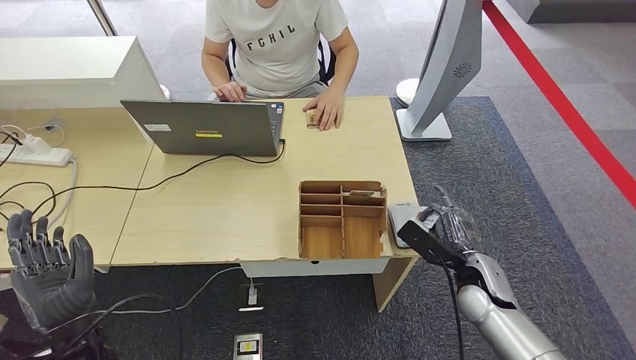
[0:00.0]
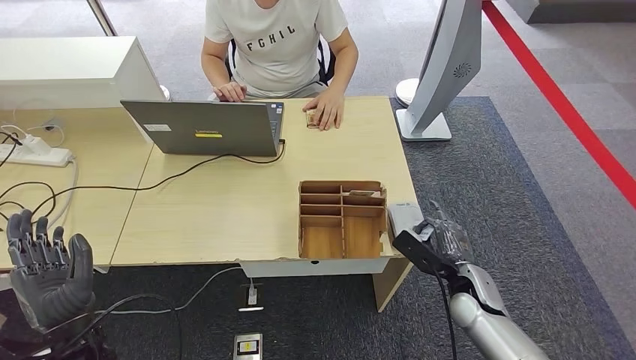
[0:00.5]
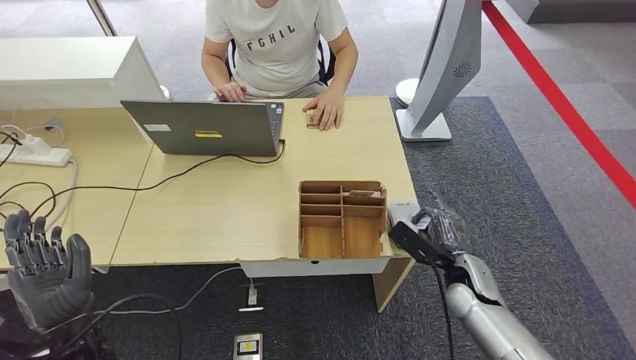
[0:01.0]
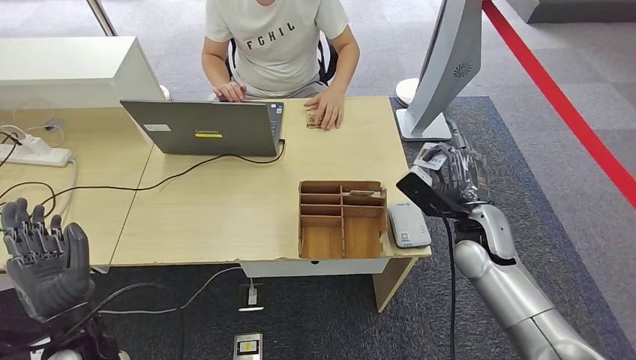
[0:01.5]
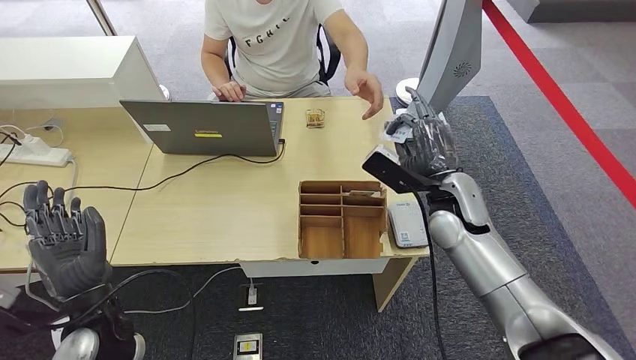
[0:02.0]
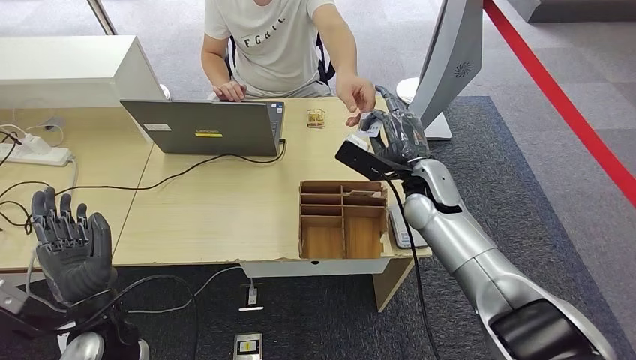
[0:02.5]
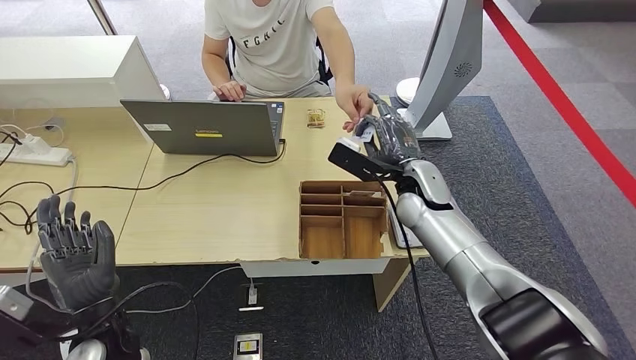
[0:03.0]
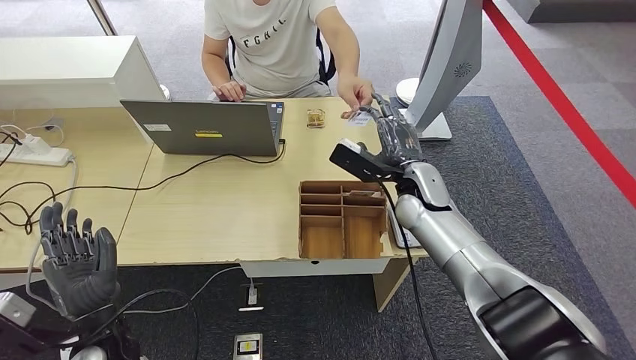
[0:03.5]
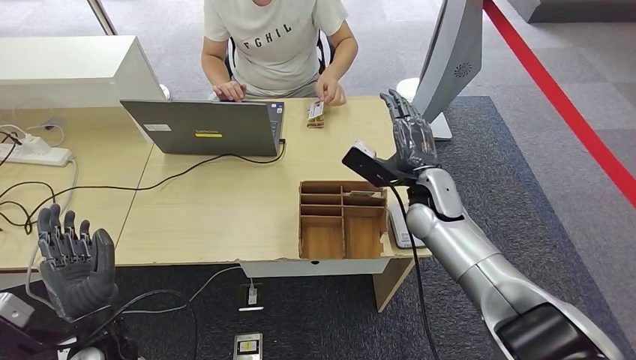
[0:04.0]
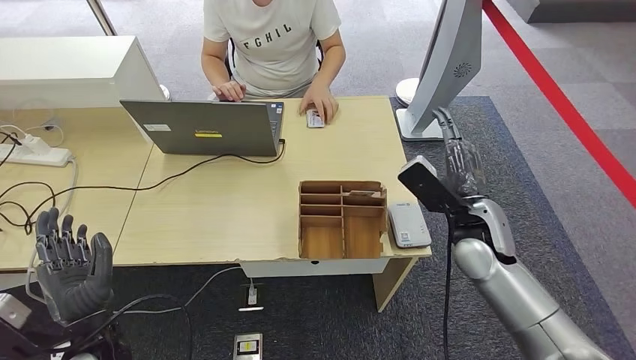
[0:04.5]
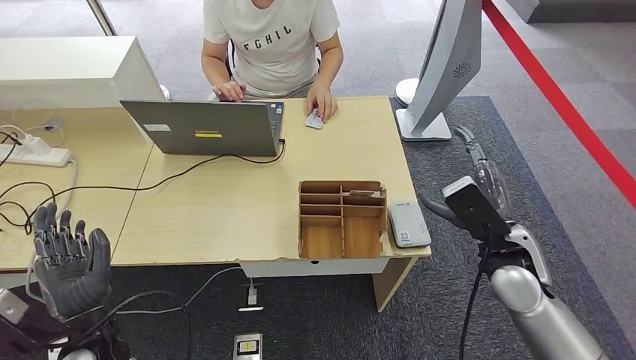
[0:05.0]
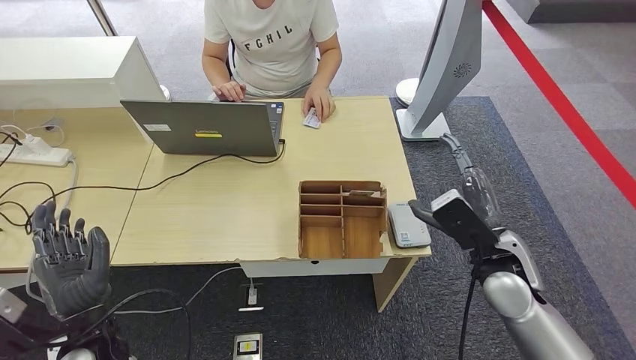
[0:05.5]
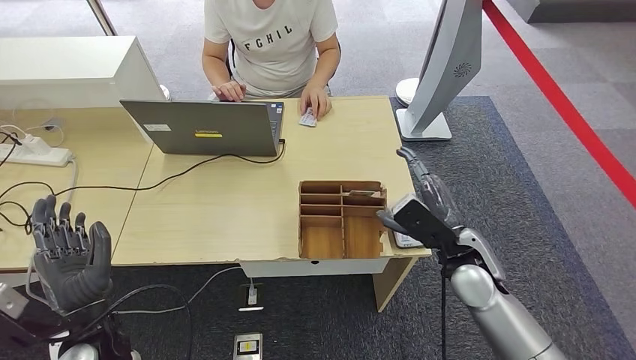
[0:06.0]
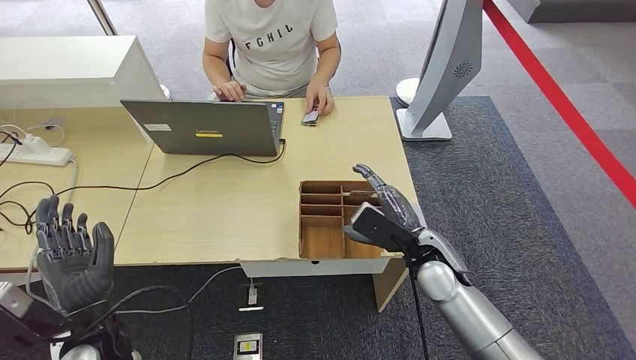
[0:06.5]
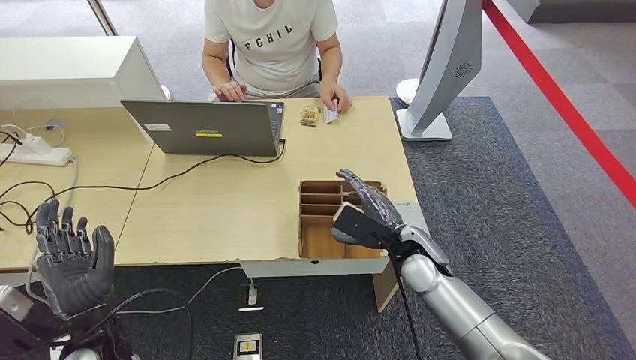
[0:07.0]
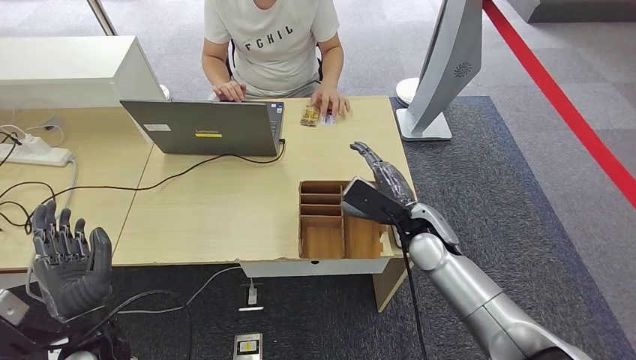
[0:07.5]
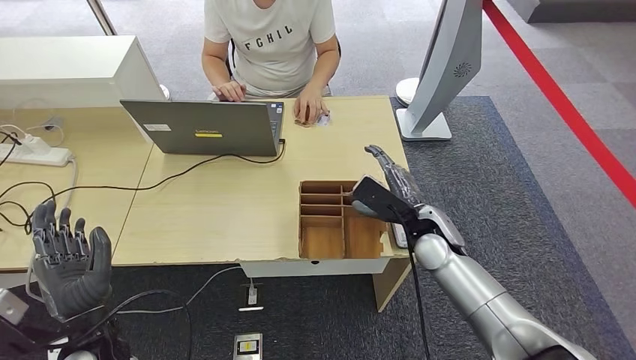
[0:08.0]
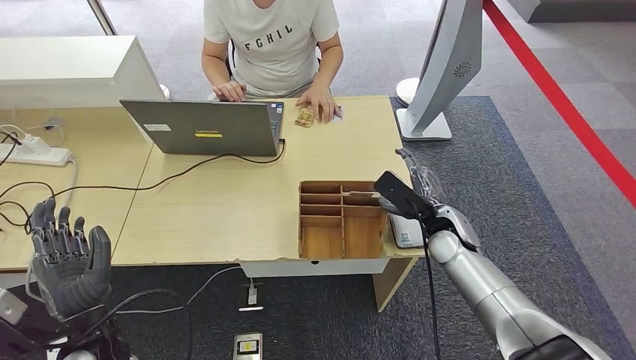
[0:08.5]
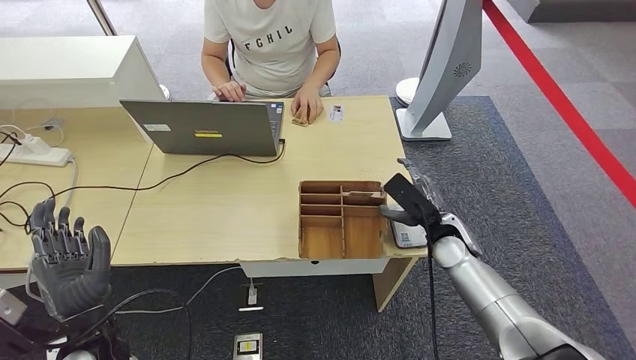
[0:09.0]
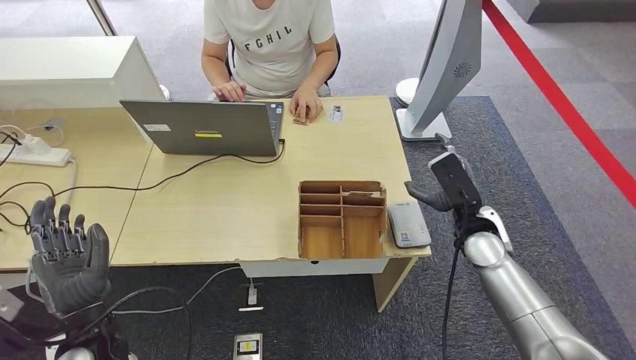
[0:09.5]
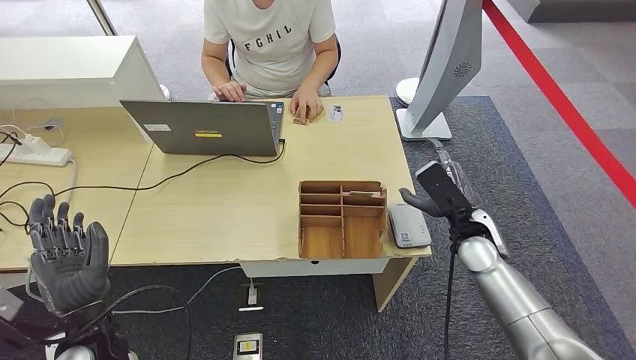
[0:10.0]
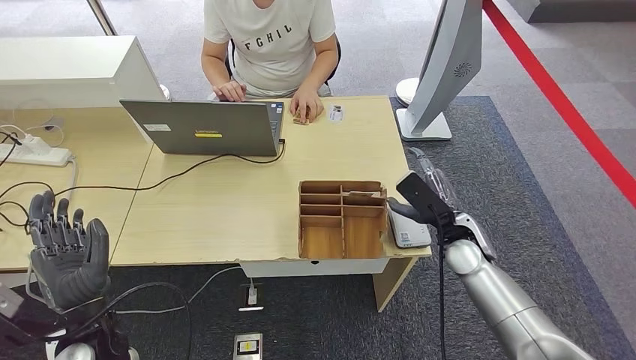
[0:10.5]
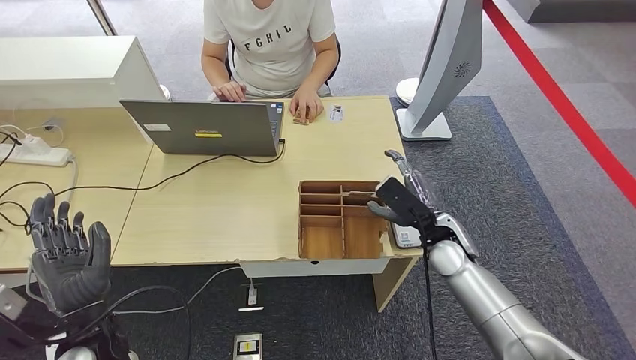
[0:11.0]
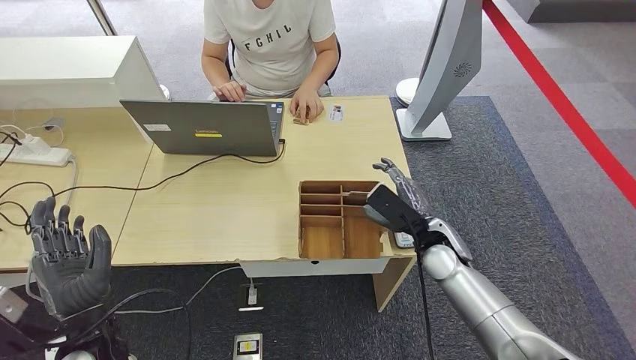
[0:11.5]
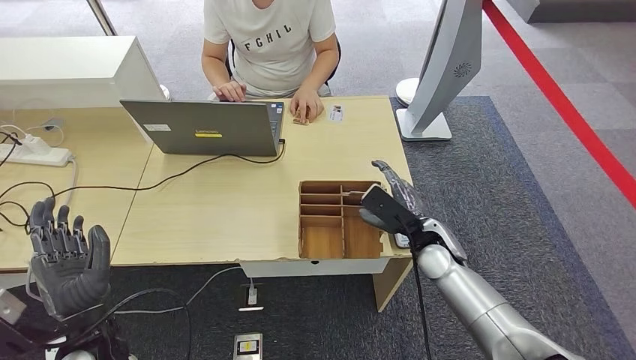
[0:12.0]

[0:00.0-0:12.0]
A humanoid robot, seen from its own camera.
Step, 0:01.5 to 0:04.5: Hand the ID card to the person.
0:00.0 to 0:02.0: The right hand shifts some 15 cm upward, forward and to the left.
0:04.0 to 0:06.0: The right hand heads backward, covering approximately 10 cm.
0:06.0 to 0:08.0: The right hand travels forward by about 5 cm.
0:08.0 to 0:10.0: The right hand moves to the right, roughly 10 cm.
0:10.0 to 0:12.0: The right hand heads to the left, covering approximately 5 cm.

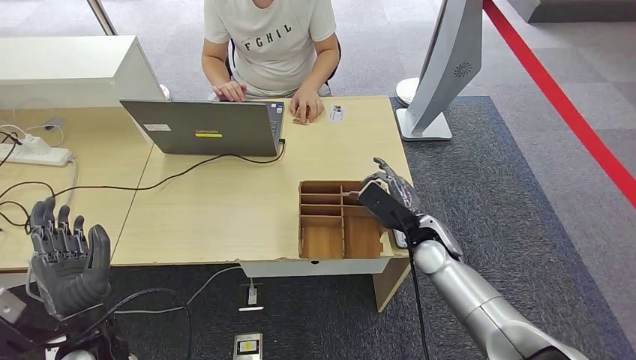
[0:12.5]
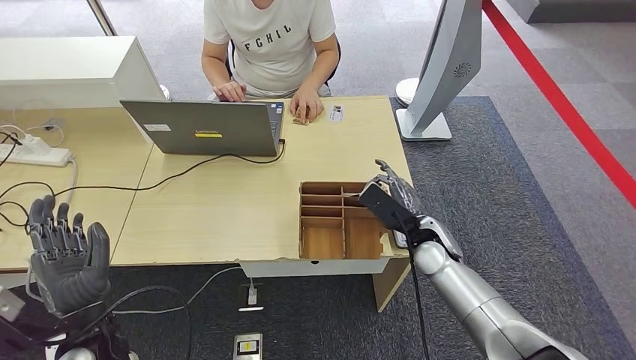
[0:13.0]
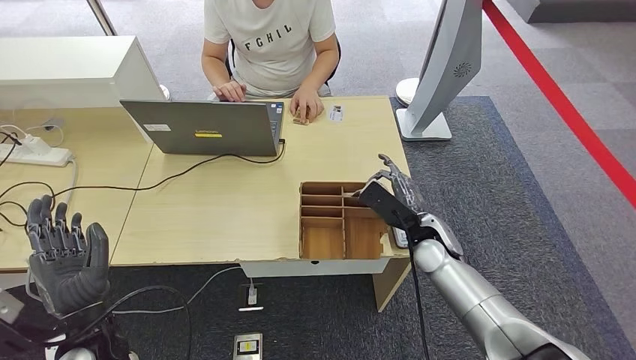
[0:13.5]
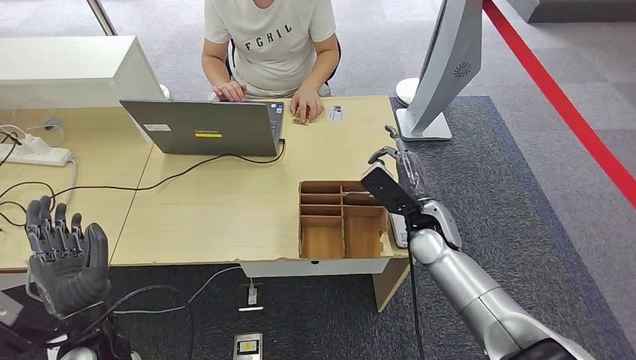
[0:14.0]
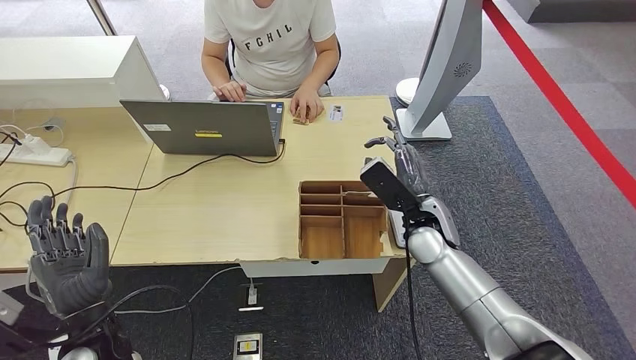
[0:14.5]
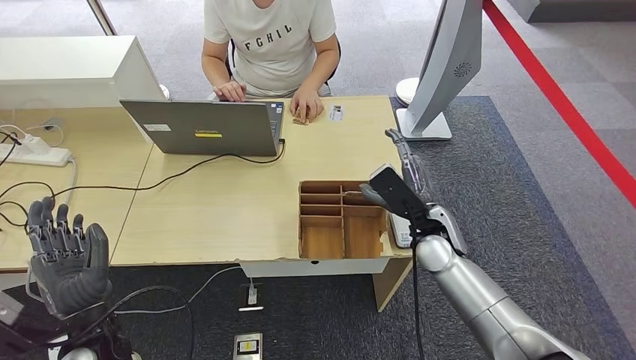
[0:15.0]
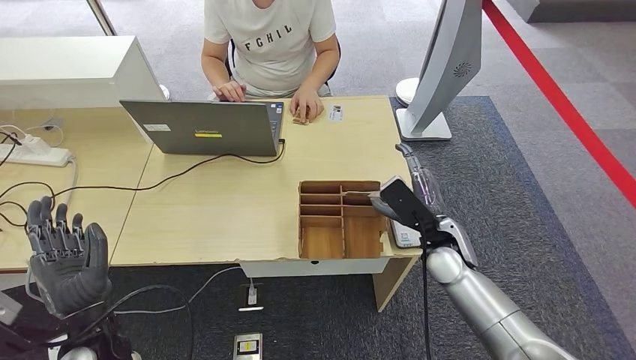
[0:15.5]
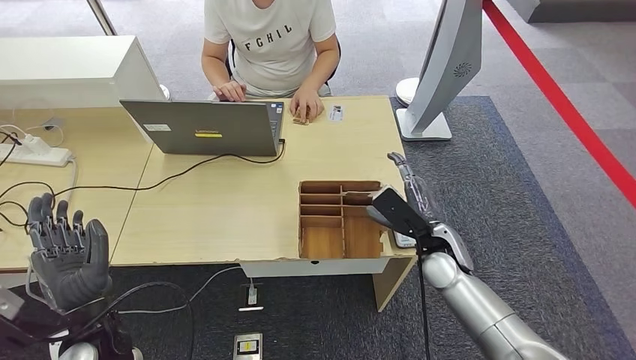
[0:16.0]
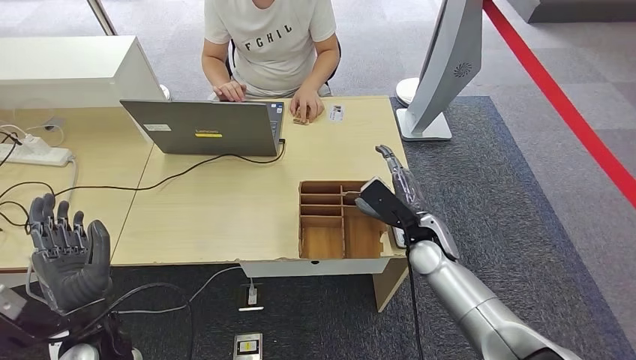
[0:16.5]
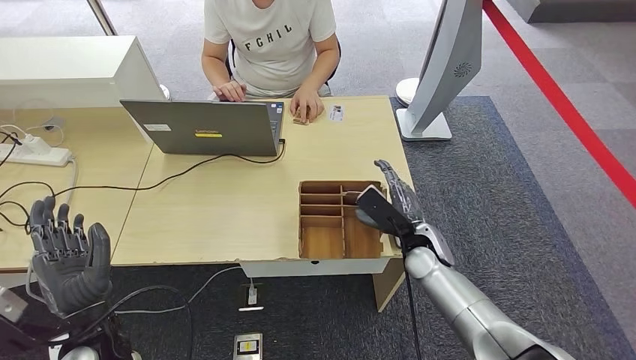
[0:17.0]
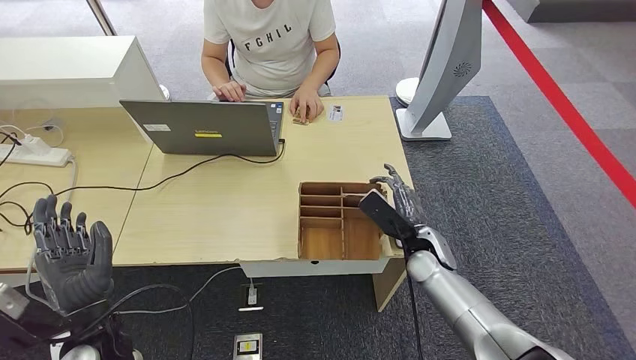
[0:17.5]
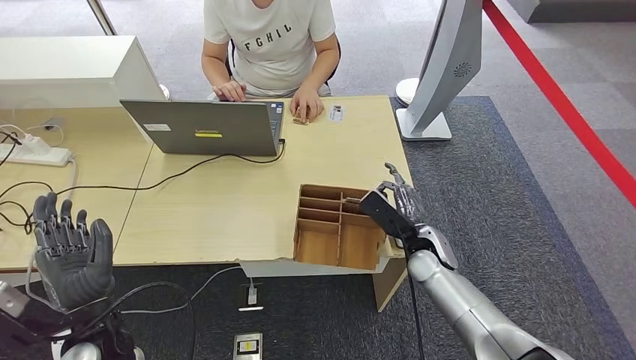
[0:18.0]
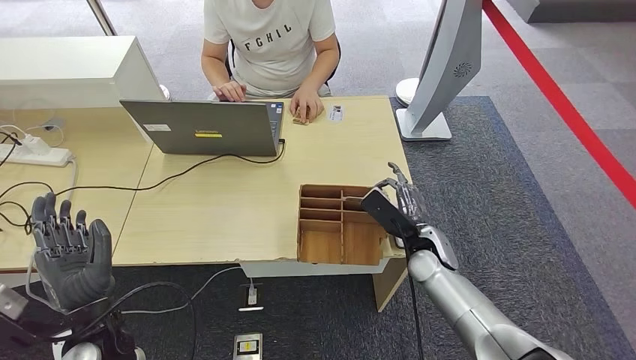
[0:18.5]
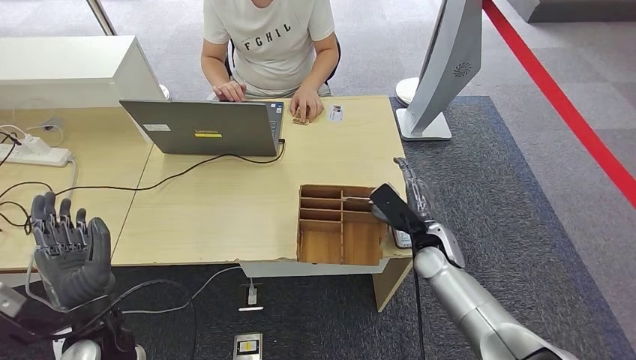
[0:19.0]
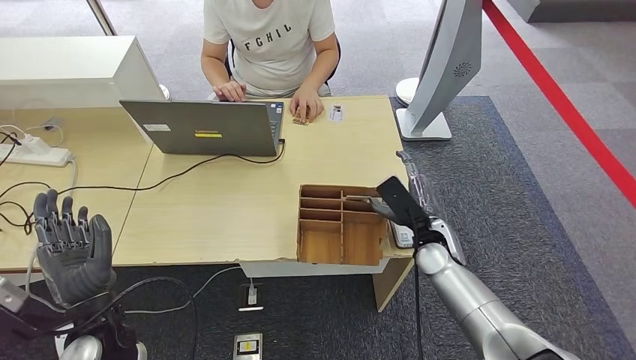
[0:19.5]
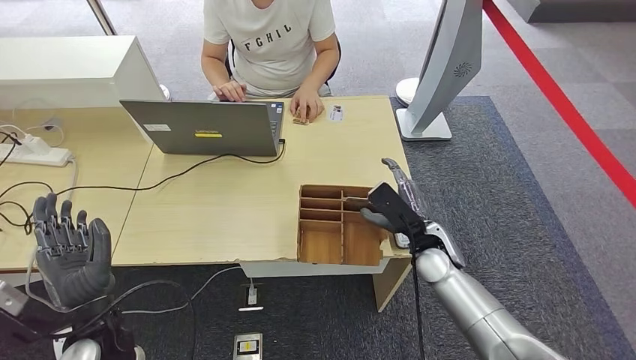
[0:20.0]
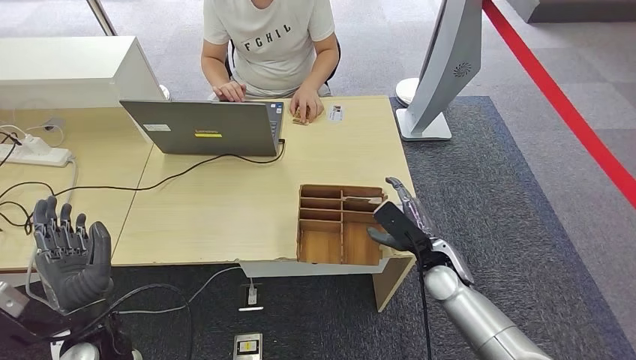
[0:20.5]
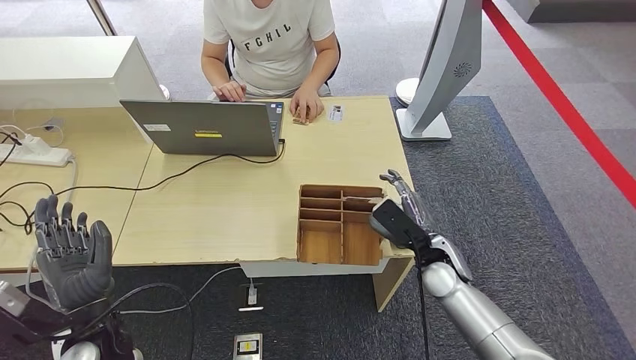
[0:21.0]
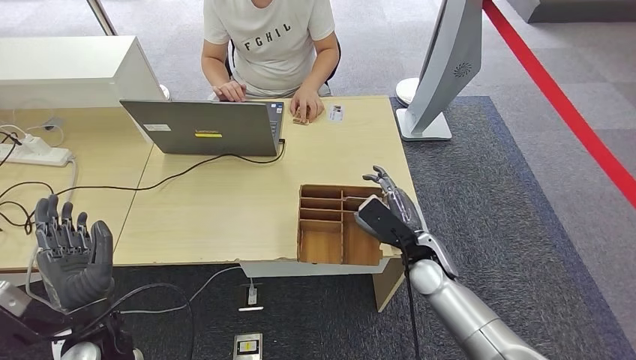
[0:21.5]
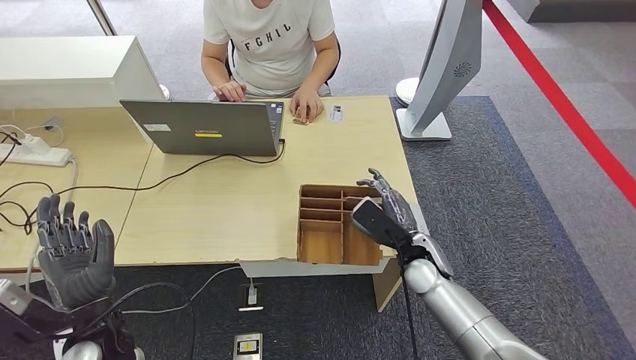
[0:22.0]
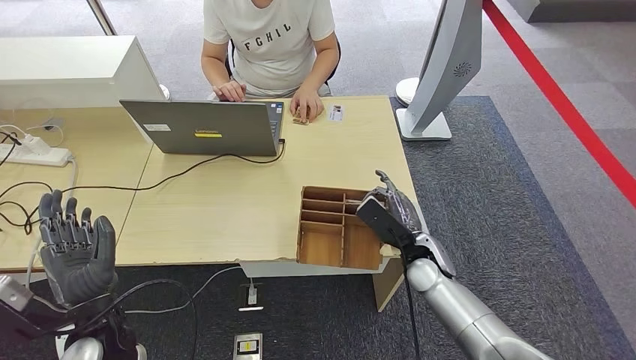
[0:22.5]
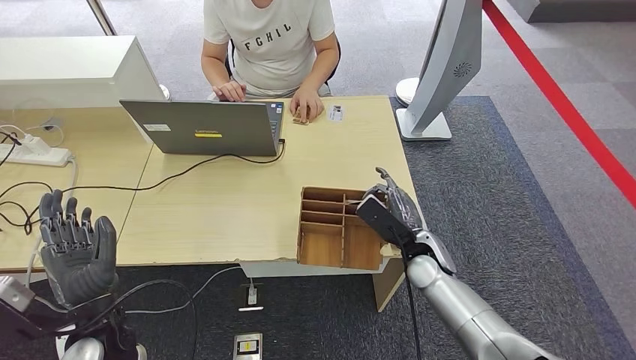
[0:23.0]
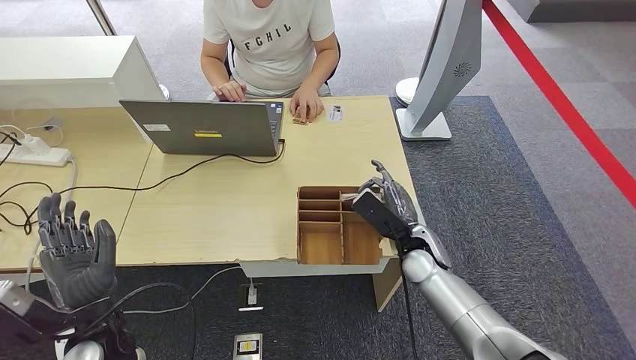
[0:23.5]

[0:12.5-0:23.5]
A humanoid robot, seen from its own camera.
0:12.5 to 0:14.5: The right hand shifts by approximately 5 cm.
0:14.5 to 0:16.0: The right hand shifts by approximately 5 cm.
0:16.0 to 0:23.5: There are only small adjustments of the hands.
